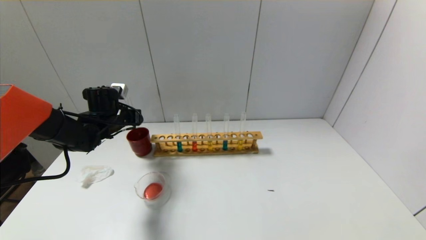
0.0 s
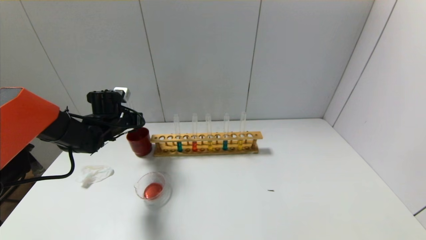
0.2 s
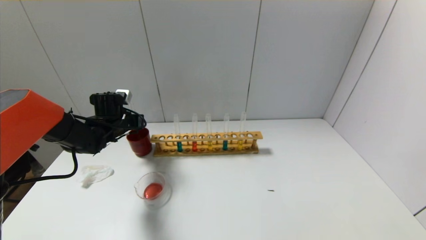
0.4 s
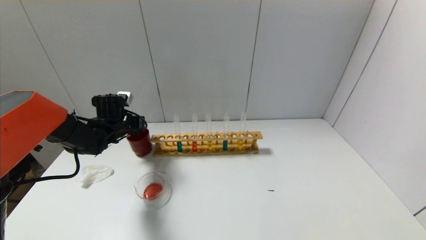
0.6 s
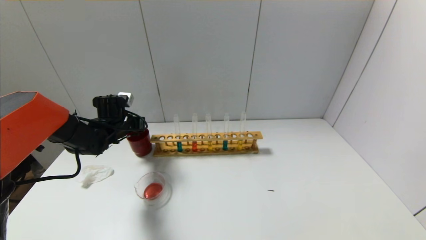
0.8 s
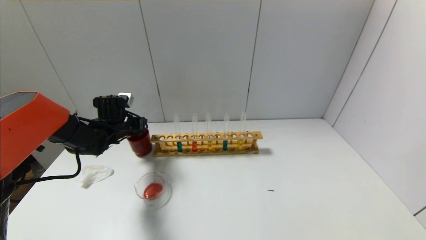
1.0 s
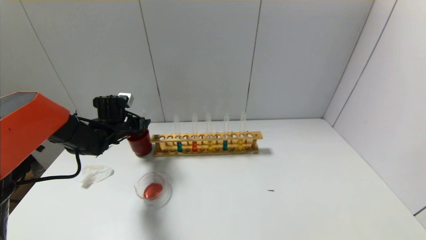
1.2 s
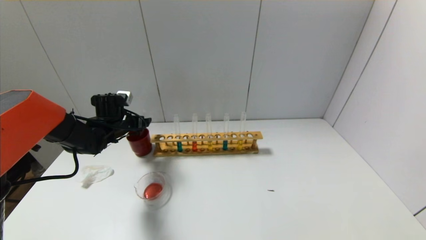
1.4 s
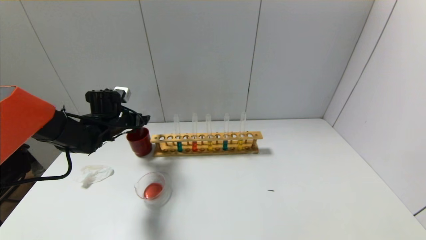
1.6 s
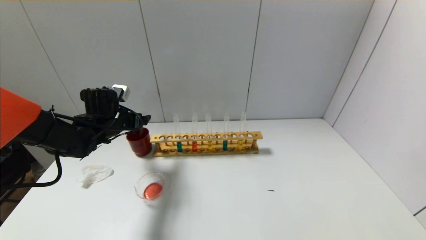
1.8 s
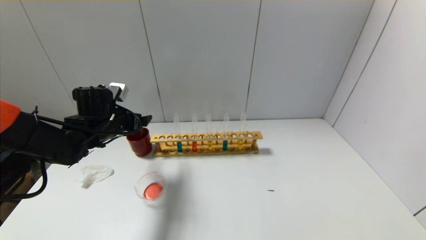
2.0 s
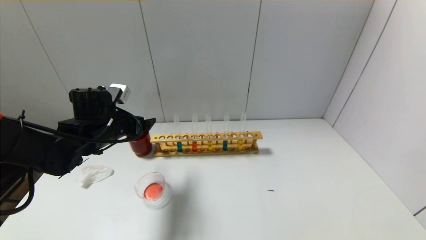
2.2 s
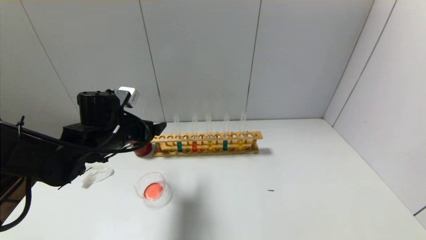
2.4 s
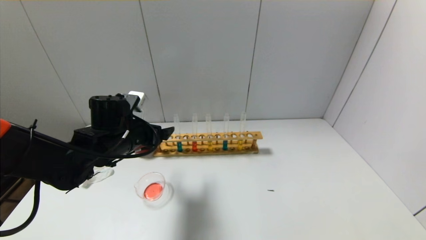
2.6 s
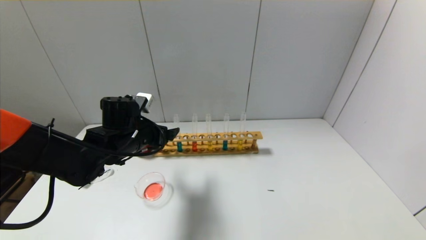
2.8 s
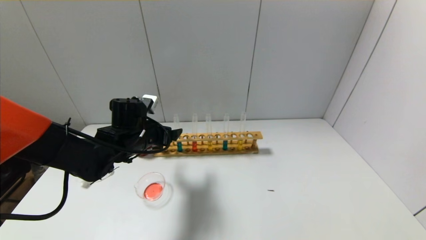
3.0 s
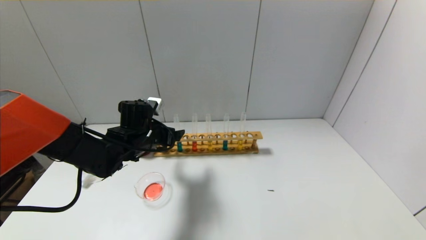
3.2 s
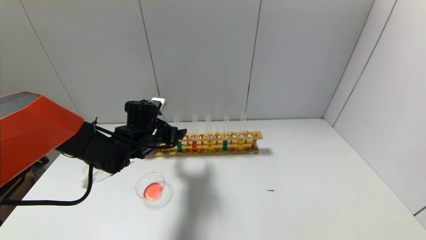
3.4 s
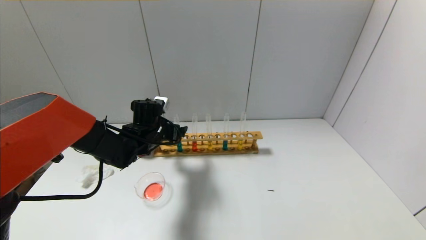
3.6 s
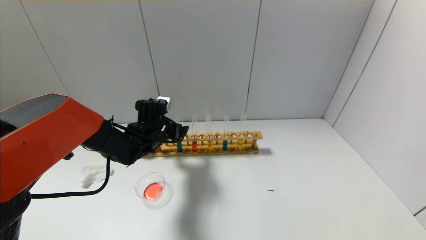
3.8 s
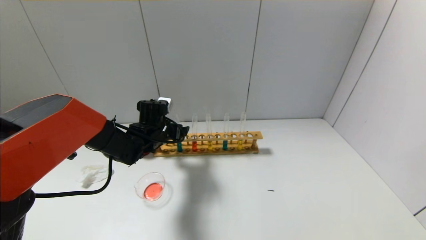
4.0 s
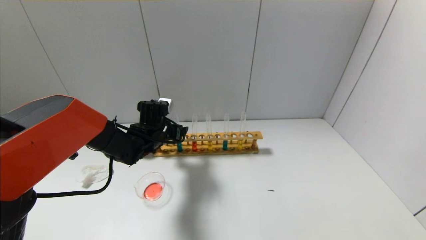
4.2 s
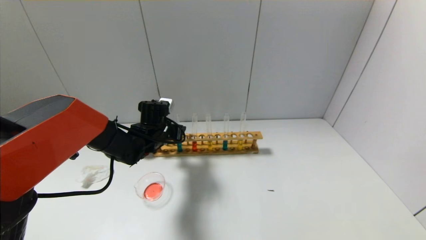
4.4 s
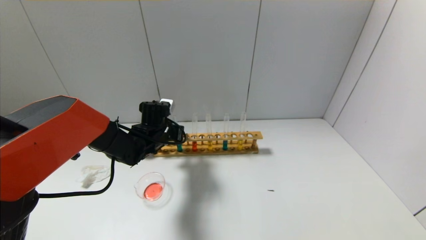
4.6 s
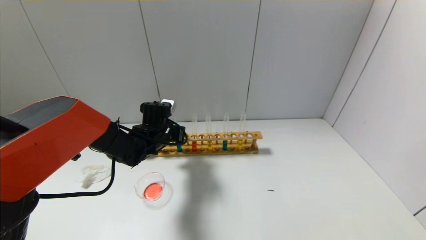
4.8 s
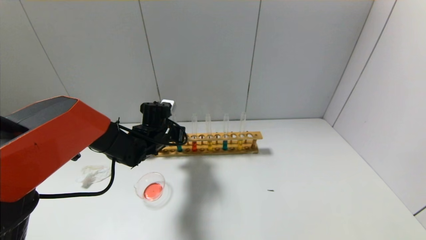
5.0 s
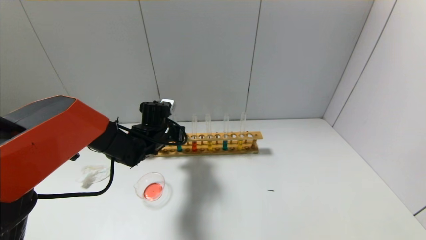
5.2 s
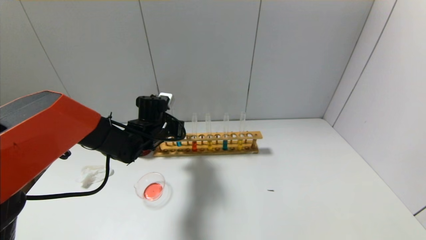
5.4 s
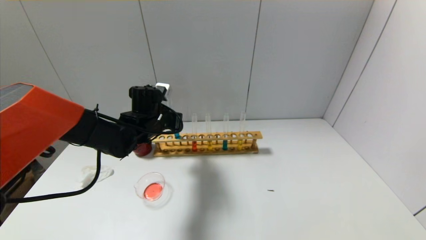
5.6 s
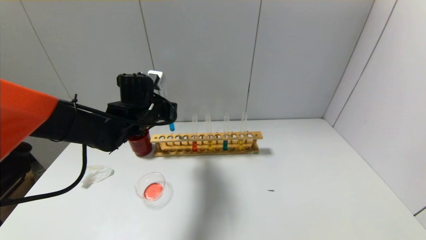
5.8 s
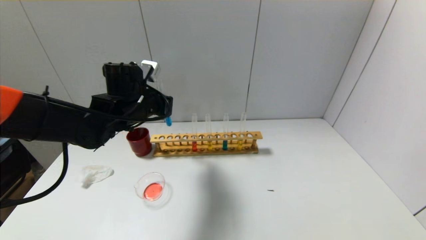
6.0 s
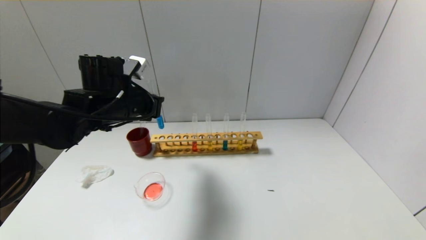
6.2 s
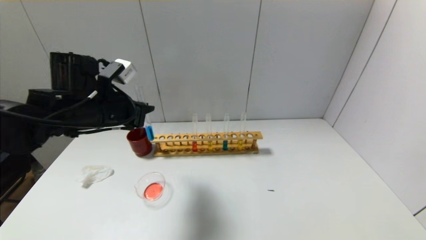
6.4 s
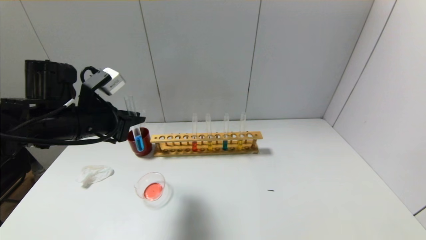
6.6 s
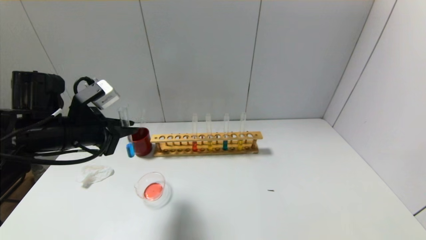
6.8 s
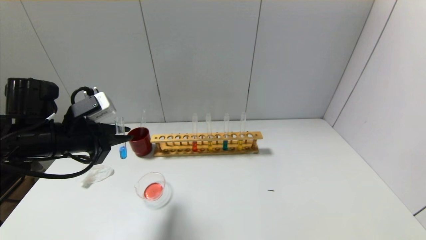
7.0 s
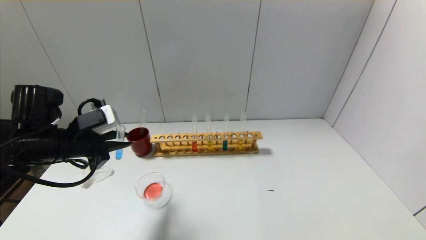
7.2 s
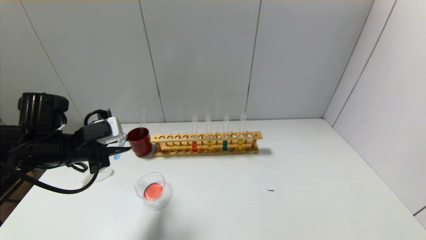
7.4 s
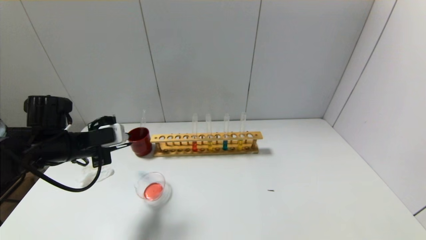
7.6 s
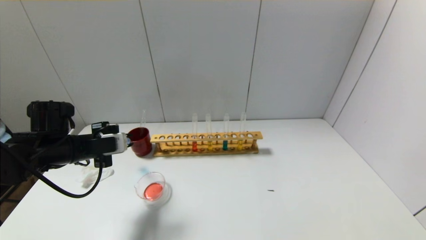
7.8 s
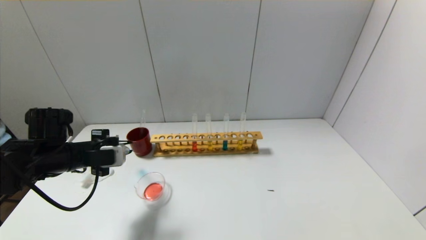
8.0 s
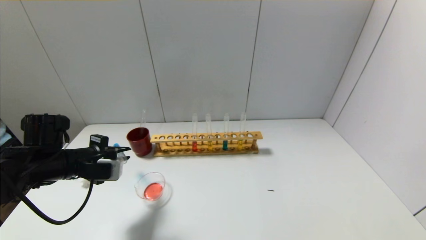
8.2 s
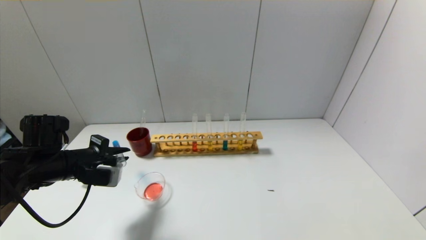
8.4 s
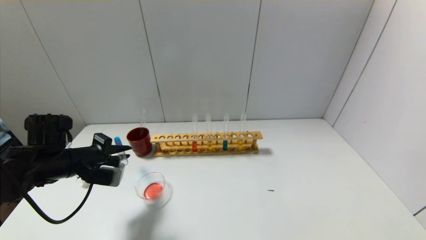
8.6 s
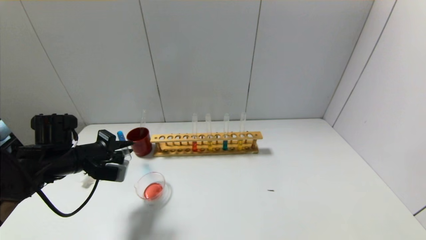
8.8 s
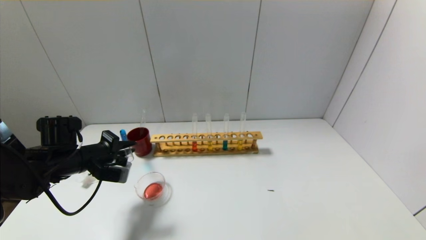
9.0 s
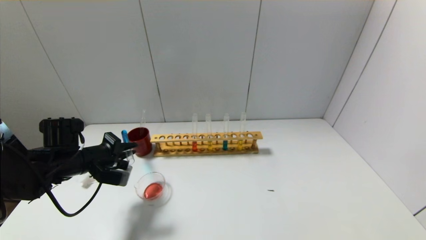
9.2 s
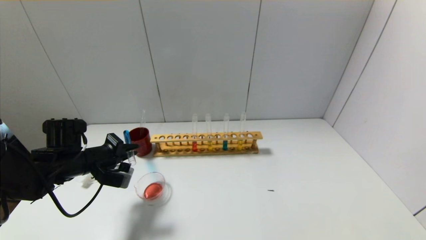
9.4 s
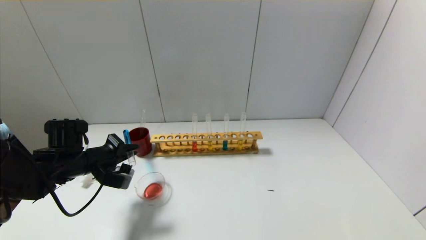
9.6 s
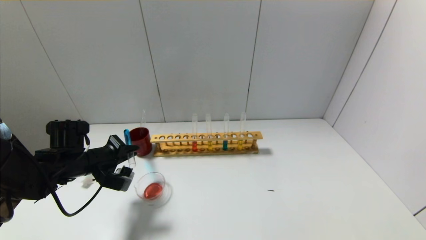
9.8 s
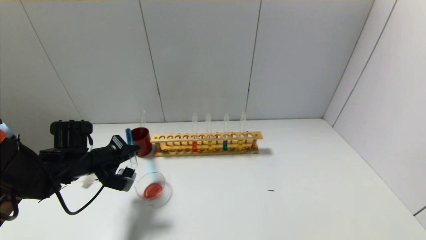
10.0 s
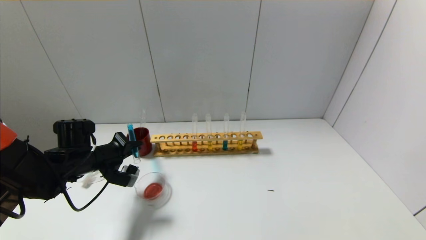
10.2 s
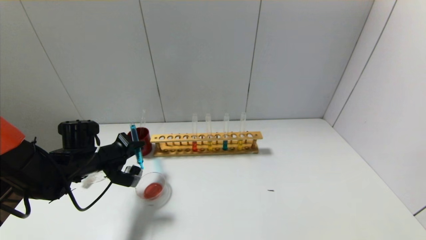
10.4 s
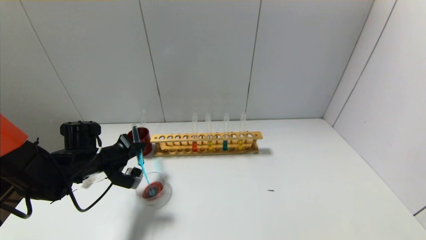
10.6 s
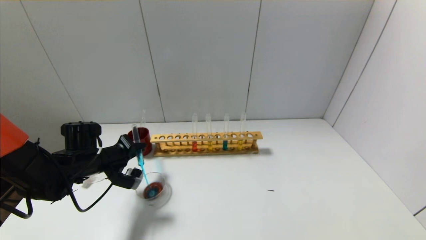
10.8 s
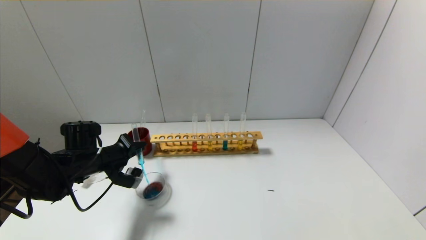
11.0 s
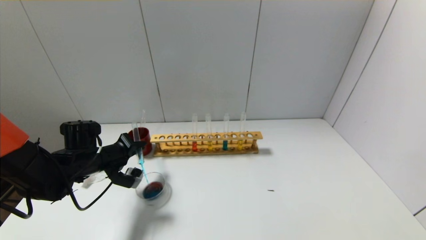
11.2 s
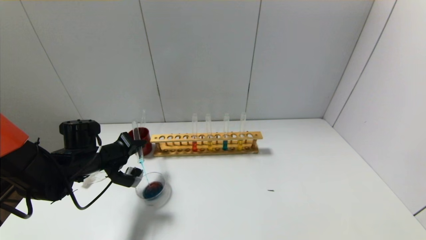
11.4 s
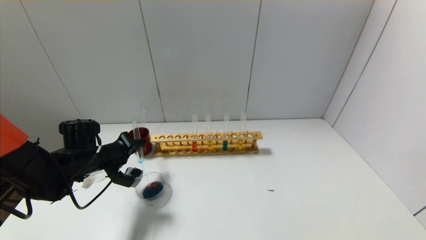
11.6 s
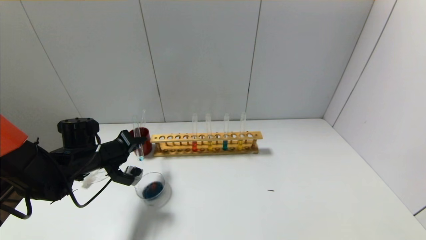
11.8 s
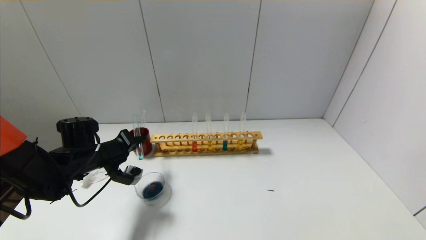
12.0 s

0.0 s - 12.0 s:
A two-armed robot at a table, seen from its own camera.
Step, 1.2 s - 4.8 s: Grasp the blue reagent with the left gripper.
0.0 s - 1.6 s: The left gripper opens up.
1.6 s - 3.0 s: The left gripper shifts roughly 10 cm to the right and backward.
3.0 s - 4.4 s: The left gripper travels forward by about 5 cm, and closes its fingers.
4.4 s - 6.0 s: The left gripper is displaced upward and backward by some 10 cm, and closes up.
6.0 s - 7.6 s: The left gripper heads to the left, backward and downward, covering some 15 cm.
9.0 s - 10.4 s: There are only small adjustments of the grippers.
10.4 s - 12.0 s: There are only small adjustments of the grippers.

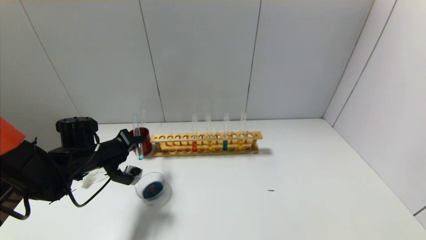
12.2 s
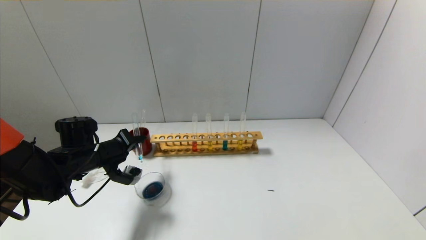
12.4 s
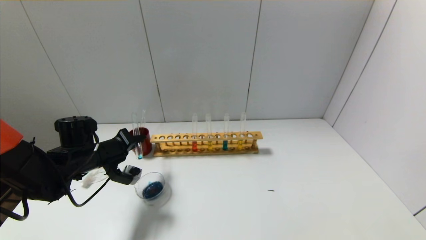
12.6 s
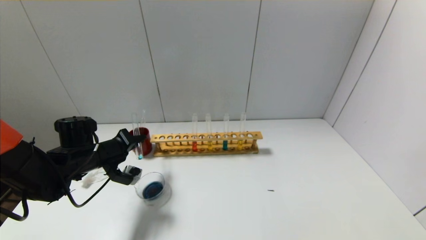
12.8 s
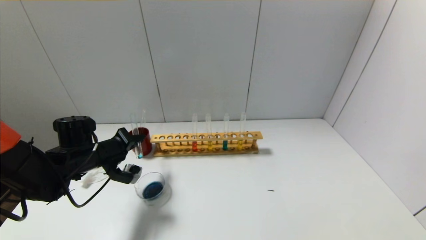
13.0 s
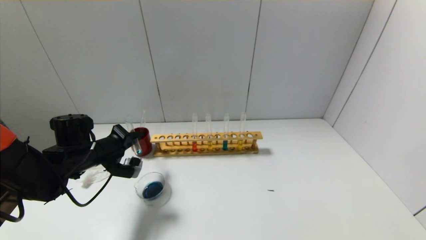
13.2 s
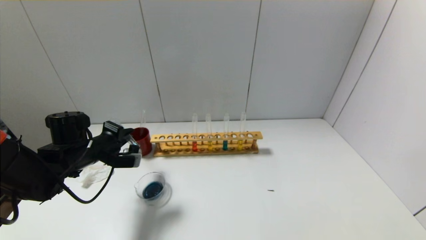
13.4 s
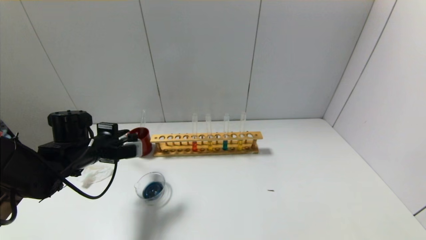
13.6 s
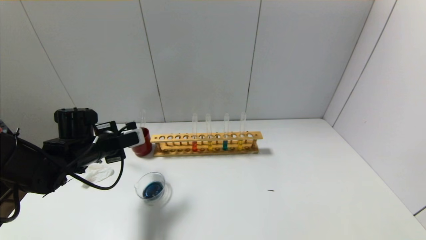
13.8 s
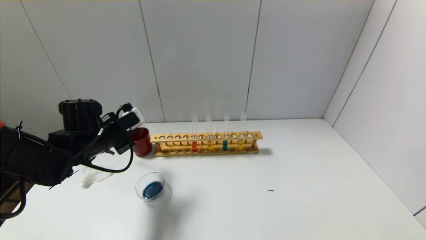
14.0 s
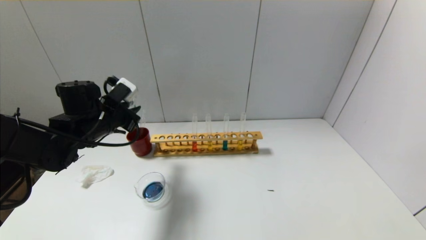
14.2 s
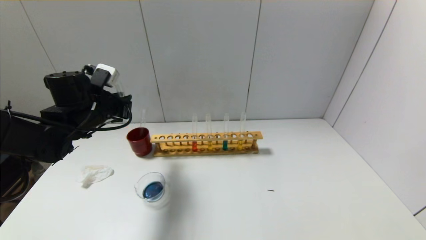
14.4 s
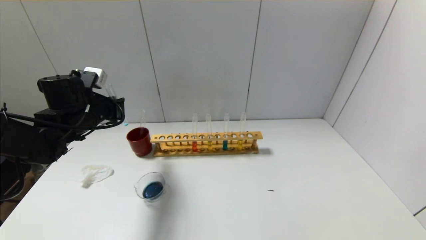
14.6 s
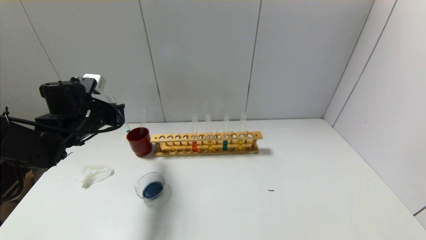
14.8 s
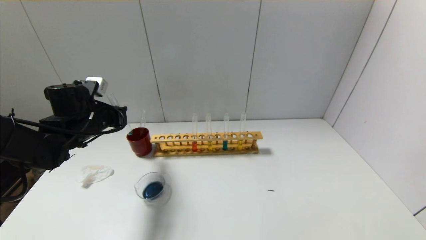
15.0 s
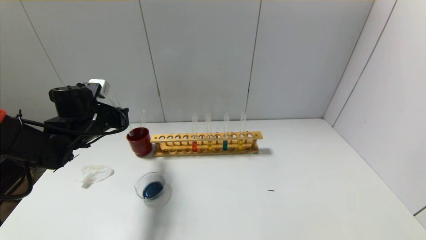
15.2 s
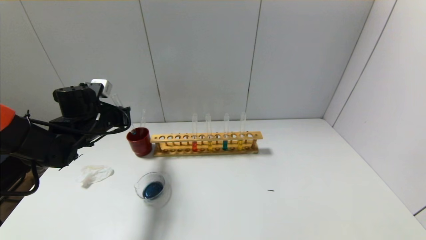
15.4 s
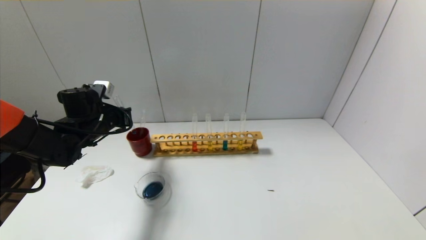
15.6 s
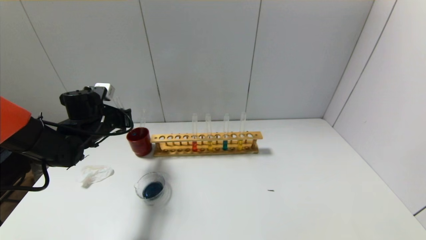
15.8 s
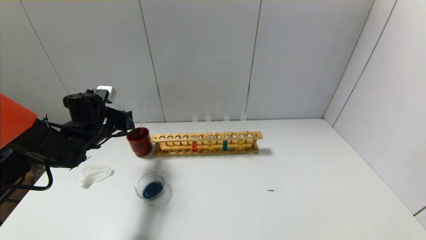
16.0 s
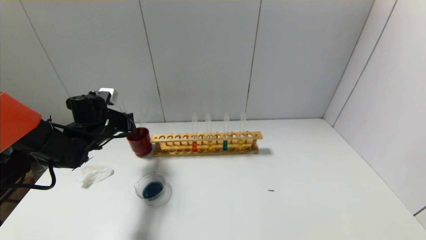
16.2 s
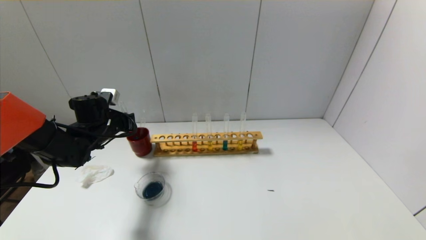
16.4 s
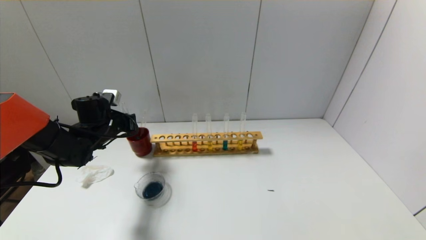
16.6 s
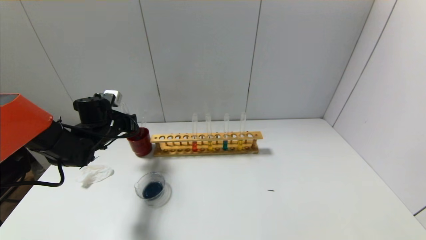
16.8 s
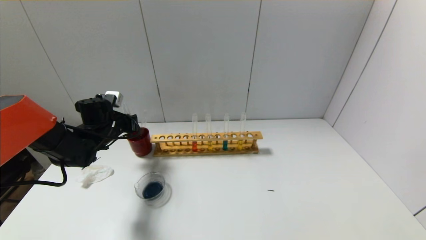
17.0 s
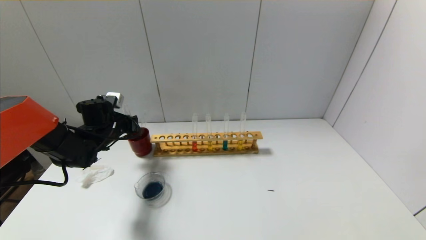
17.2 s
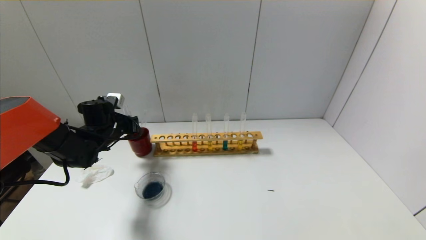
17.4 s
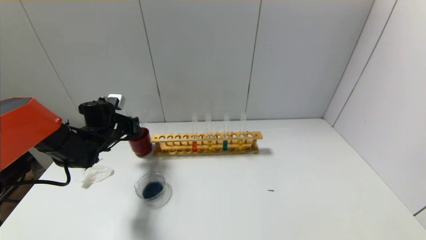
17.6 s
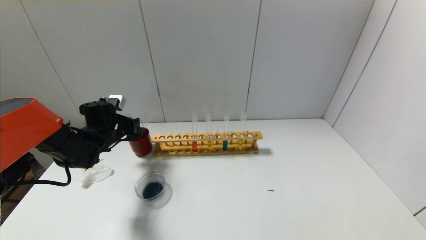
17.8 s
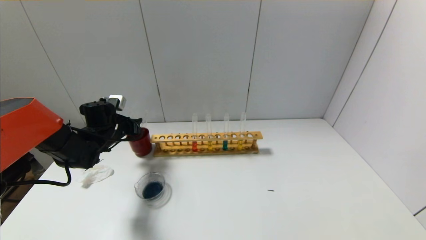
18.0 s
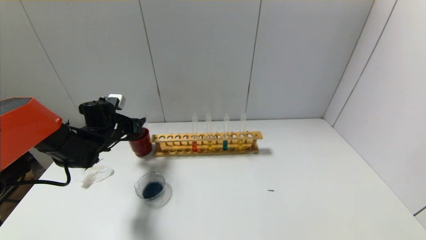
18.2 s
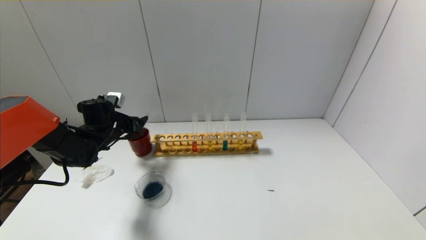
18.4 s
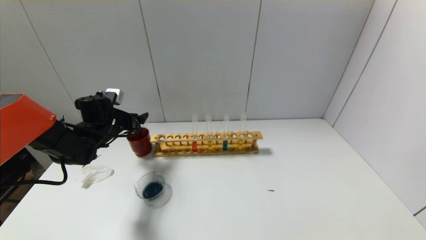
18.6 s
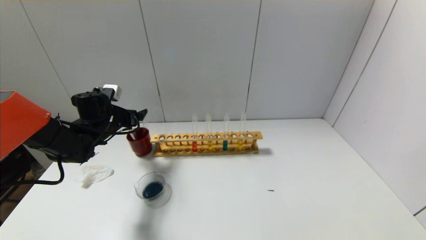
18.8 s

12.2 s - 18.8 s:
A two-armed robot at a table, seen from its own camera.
Step, 13.6 s - 18.0 s: Place the test tube into the brown cup with the left gripper.
13.8 s - 15.4 s: The left gripper changes place by about 5 cm.
15.4 s - 17.2 s: The left gripper shifts some 5 cm downward.
17.2 s - 18.8 s: The left gripper opens up.
